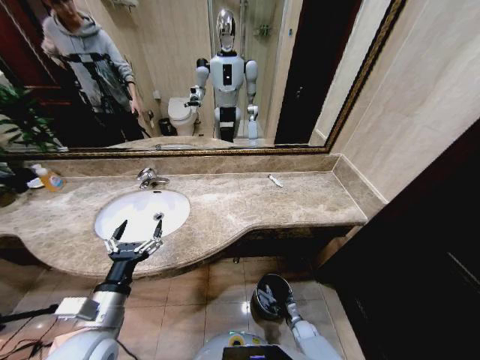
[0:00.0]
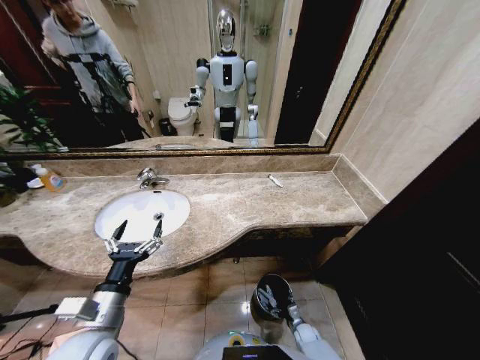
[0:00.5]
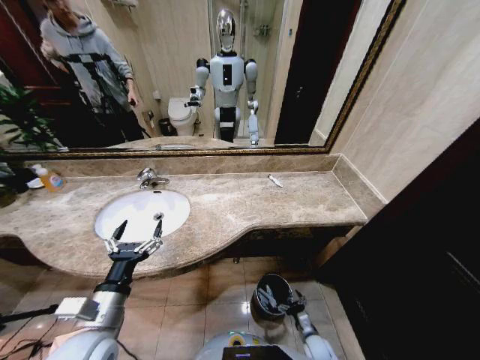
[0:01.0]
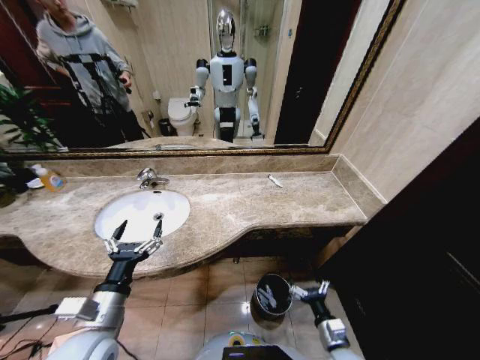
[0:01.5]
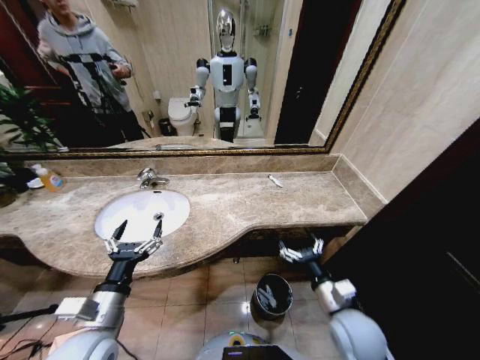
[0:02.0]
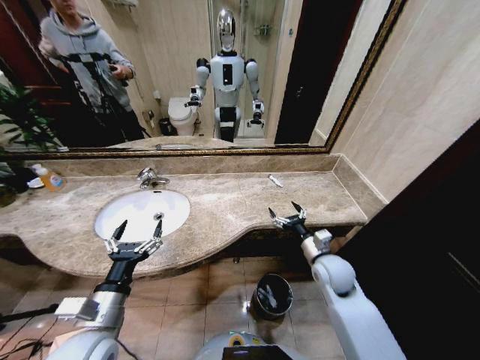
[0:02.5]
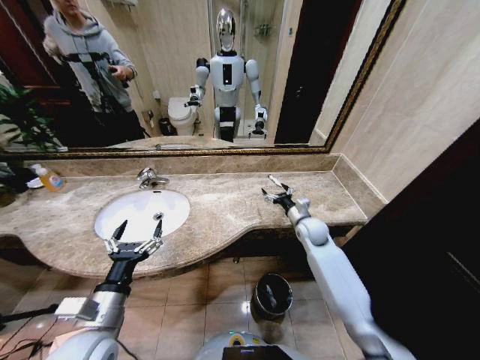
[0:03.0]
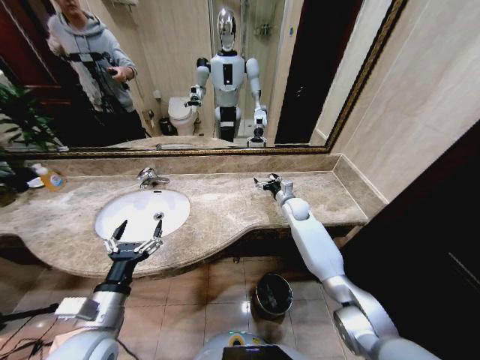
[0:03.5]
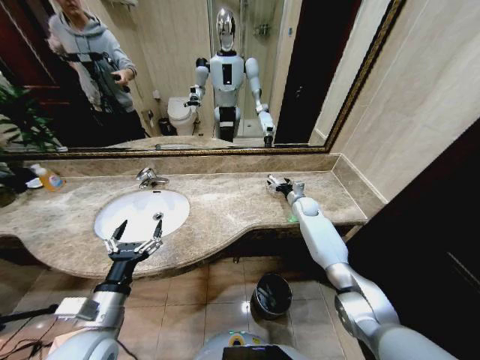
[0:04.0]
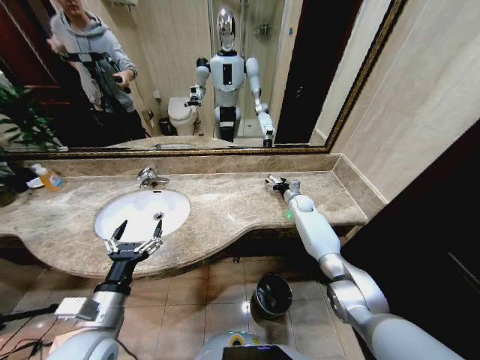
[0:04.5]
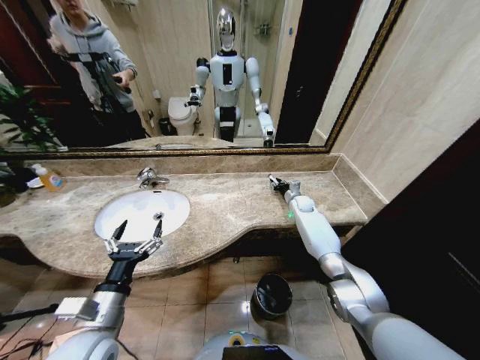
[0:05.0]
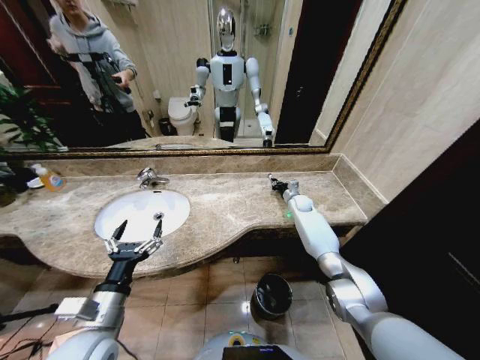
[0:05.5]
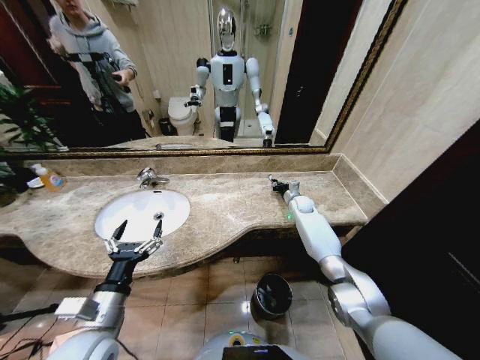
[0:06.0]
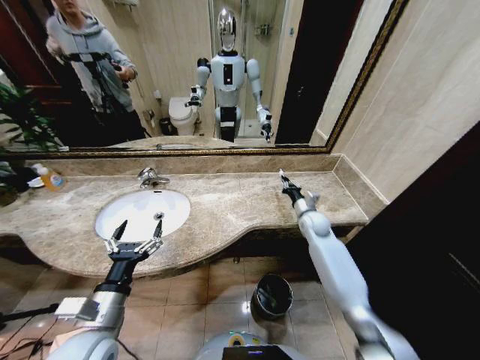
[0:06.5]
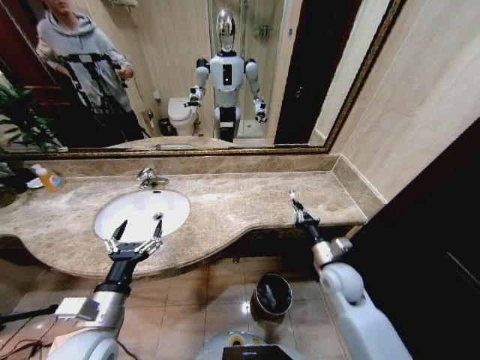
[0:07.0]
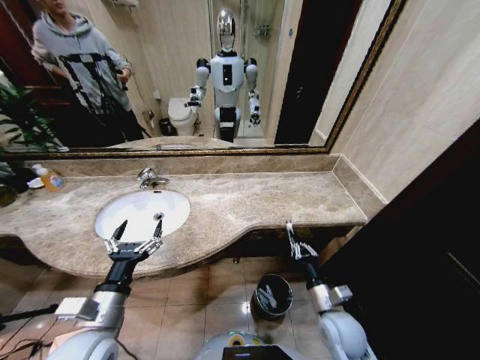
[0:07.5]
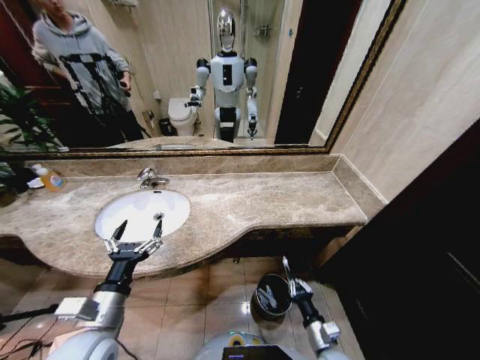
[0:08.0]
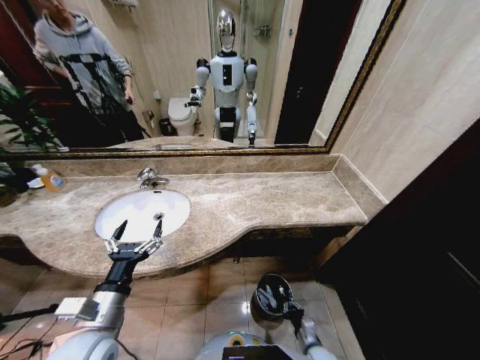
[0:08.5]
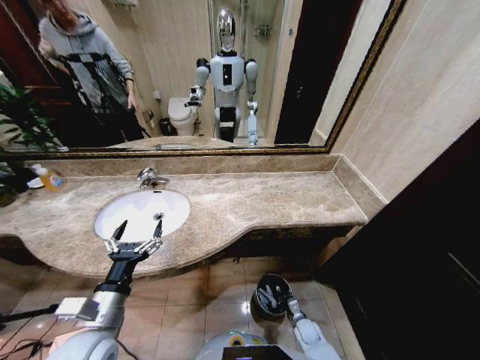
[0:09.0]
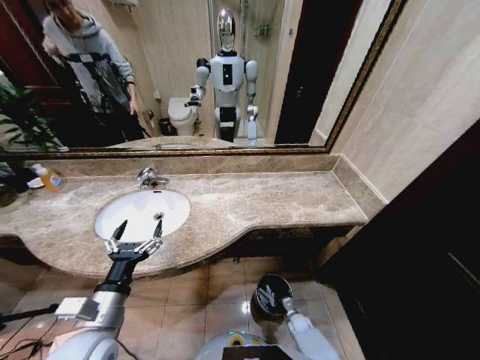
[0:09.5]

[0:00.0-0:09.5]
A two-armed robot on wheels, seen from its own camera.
Task of the whole recording: Pick up the trash from the sink and place it in the trash bin.
0:00.0 to 0:02.0: The right gripper shifts roughly 40 cm upward, and opens up.
0:02.0 to 0:04.0: The right gripper is displaced forward by roughly 40 cm.
0:04.0 to 0:05.5: The right gripper closes its fingers.
0:05.5 to 0:07.5: The right gripper moves backward, approximately 40 cm.
0:07.5 to 0:09.5: The right gripper shifts about 30 cm downward.

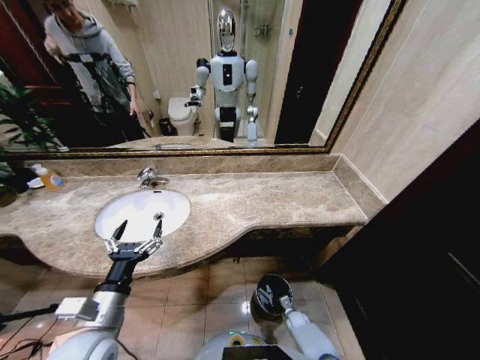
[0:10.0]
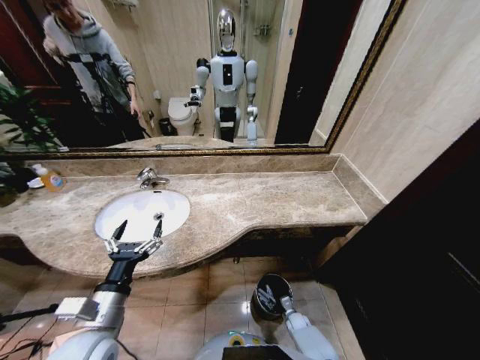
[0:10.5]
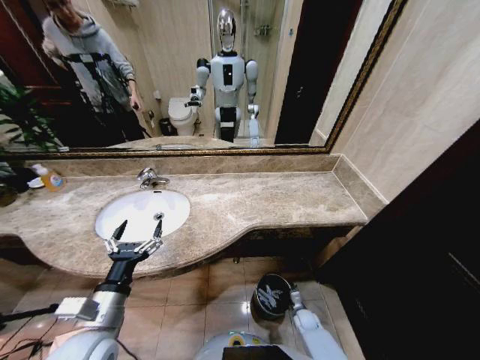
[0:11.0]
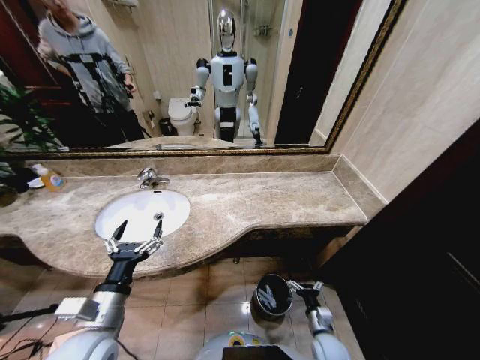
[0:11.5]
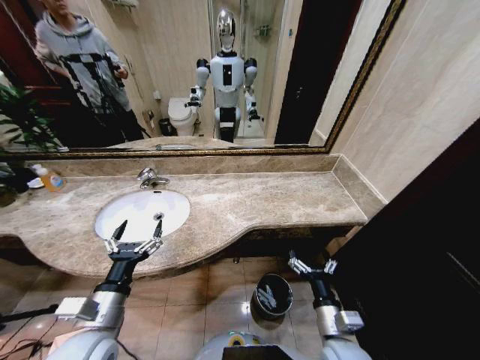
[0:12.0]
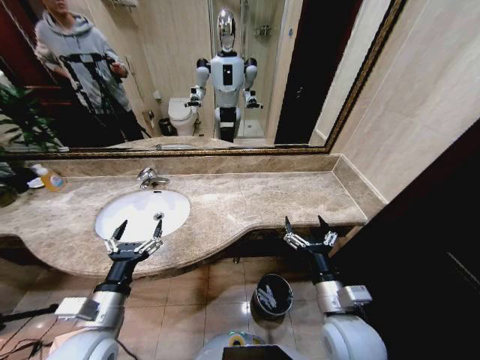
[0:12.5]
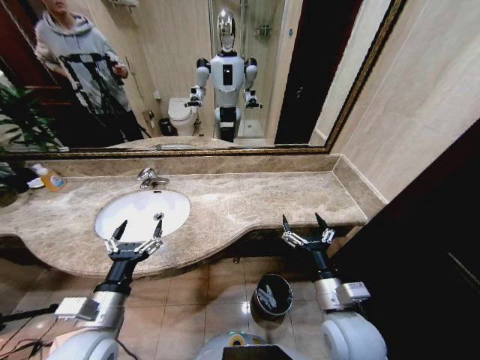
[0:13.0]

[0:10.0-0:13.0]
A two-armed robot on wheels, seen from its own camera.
Task of the whole recording: Pick up the trash from the sink and place it in the trash bin.
0:10.0 to 0:11.5: The right gripper moves upward and backward, about 20 cm, and opens up.
0:11.5 to 0:13.0: The right gripper heads upward, covering about 30 cm.

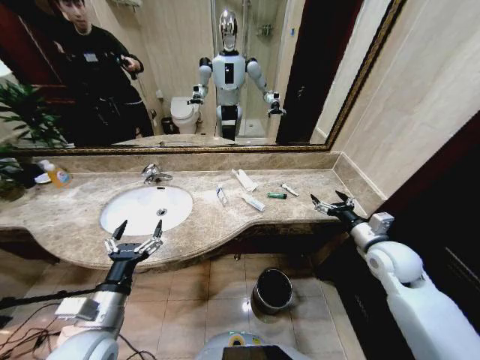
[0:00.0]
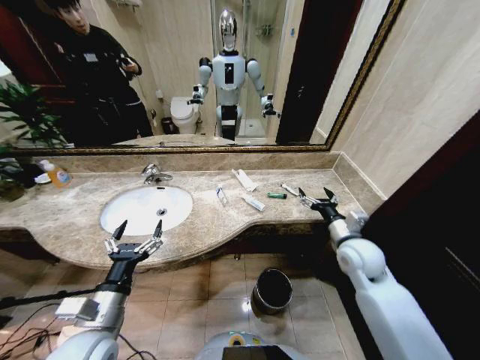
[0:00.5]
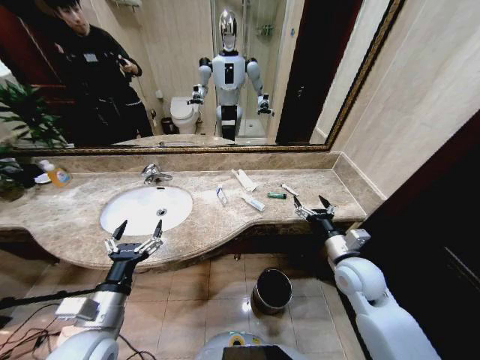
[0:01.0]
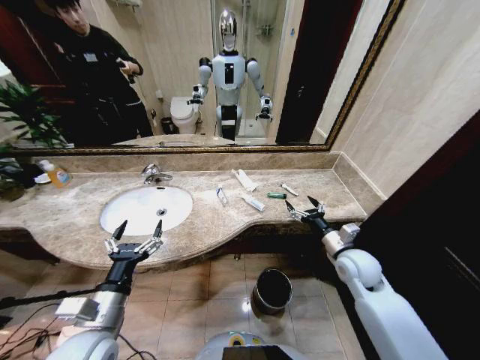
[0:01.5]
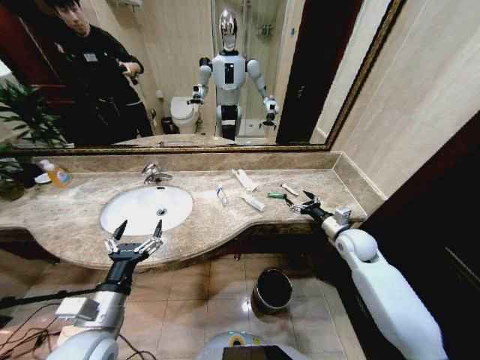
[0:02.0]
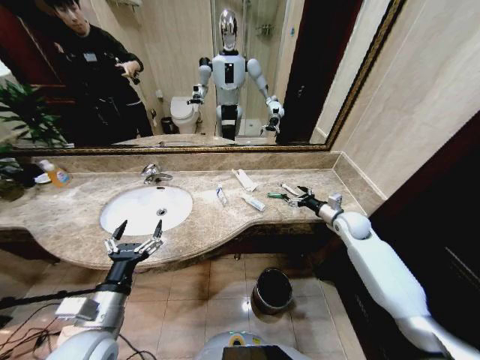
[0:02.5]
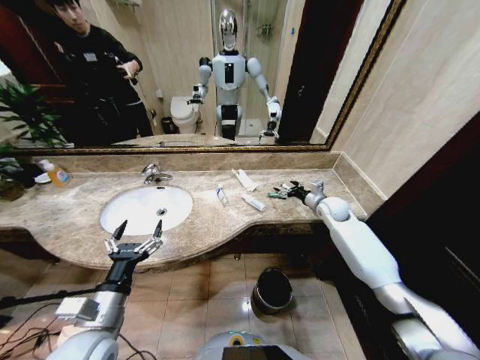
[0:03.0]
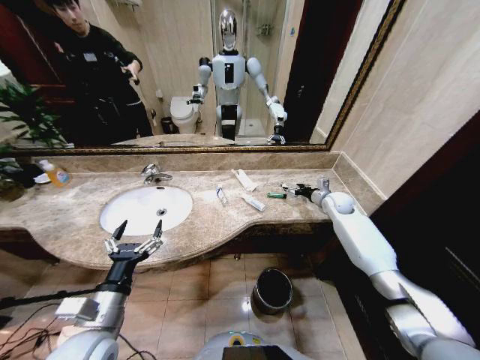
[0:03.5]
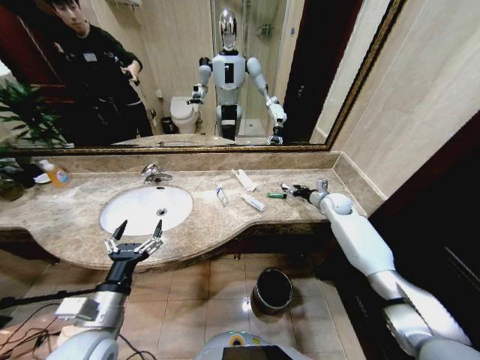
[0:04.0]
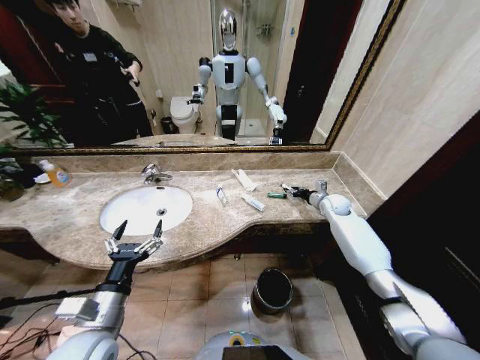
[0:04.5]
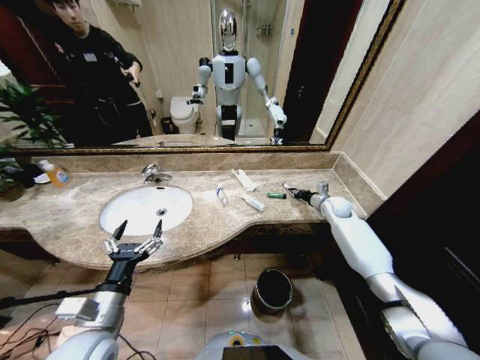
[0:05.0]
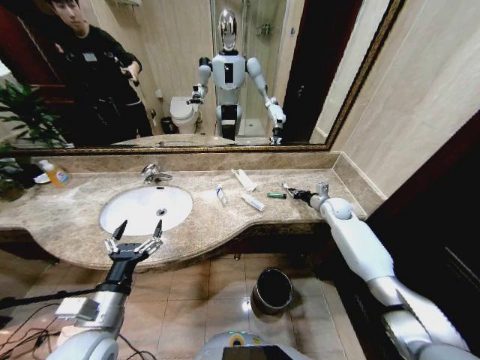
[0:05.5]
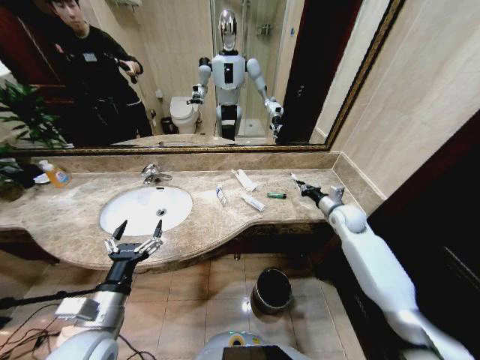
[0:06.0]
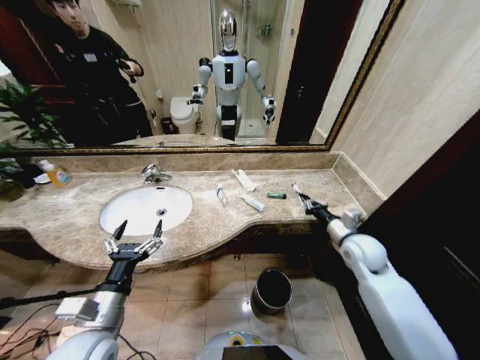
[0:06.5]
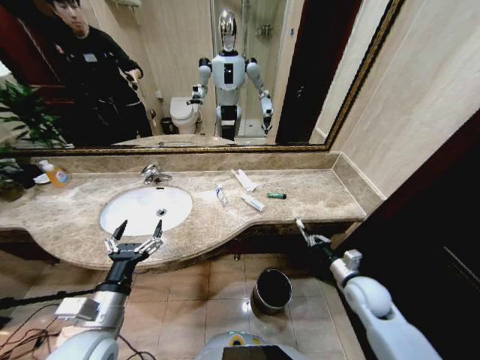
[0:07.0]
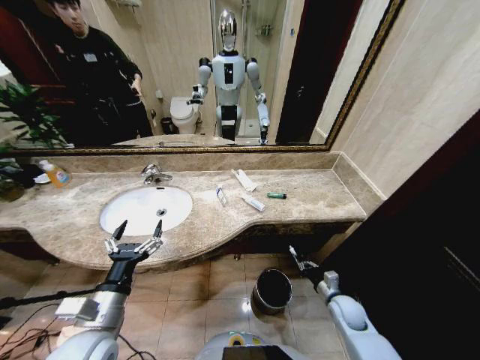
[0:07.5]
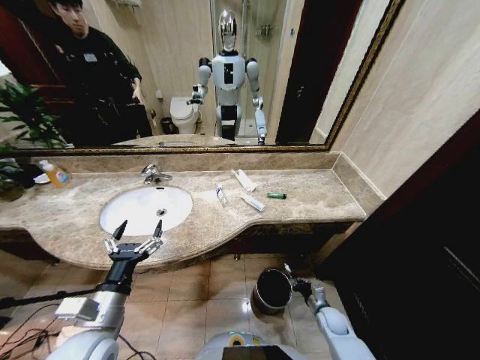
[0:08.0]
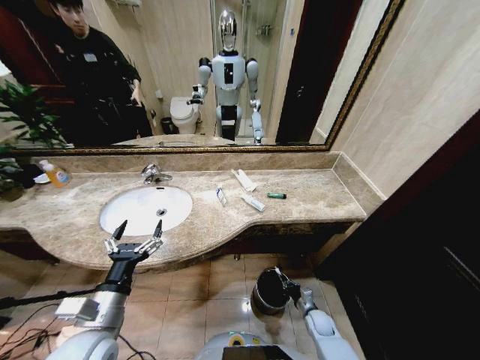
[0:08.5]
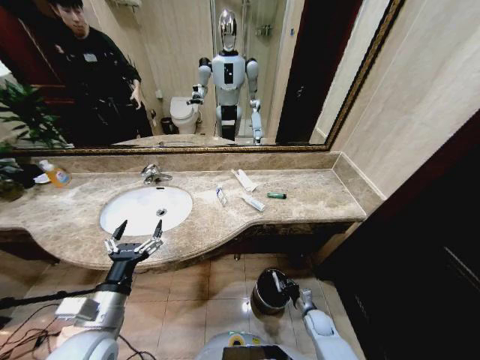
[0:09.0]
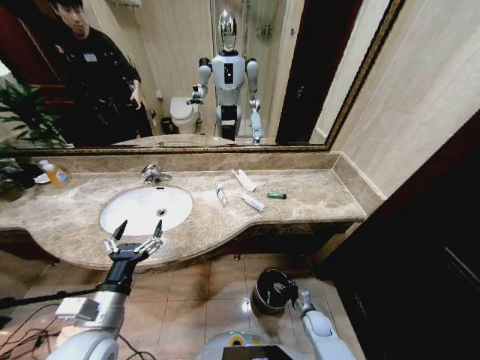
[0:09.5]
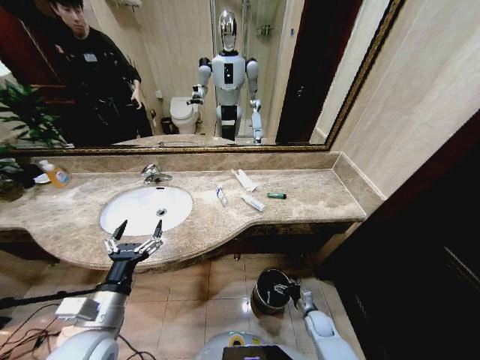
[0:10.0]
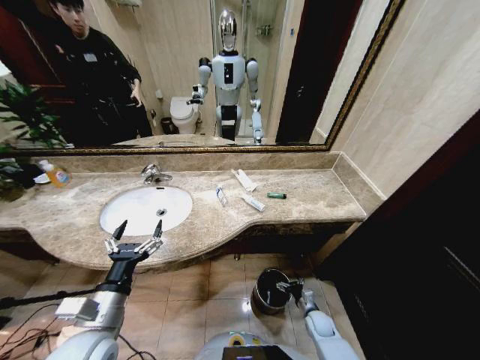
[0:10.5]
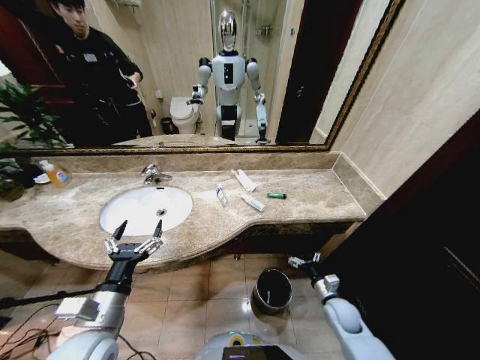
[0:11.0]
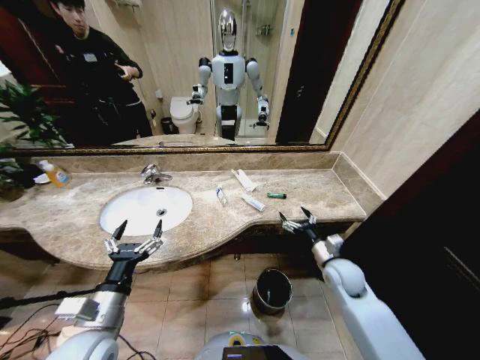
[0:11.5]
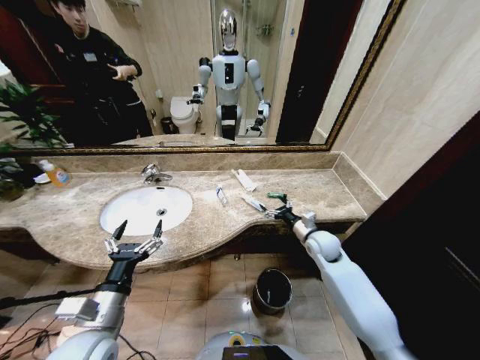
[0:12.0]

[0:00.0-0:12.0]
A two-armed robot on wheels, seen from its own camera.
Task of the whole recording: Pick up the trash from the sink and place it in the trash bin.
0:02.0 to 0:04.0: The right gripper shifts roughly 15 cm forward.
0:04.0 to 0:06.0: The right gripper is displaced backward by about 5 cm, and closes.
0:06.0 to 0:08.0: The right gripper moves downward and backward, some 40 cm.
0:08.0 to 0:10.0: The right gripper moves about 5 cm, and opens its fingers.
0:10.0 to 0:12.0: The right gripper shifts some 35 cm upward and forward.

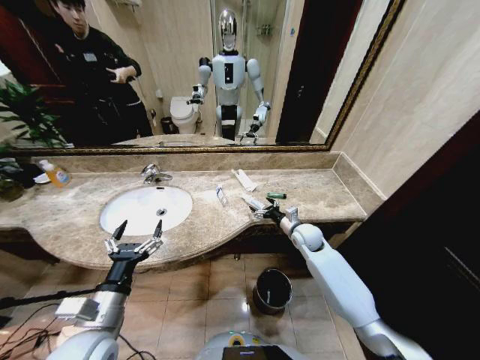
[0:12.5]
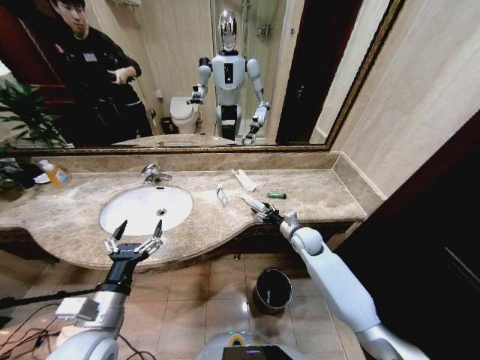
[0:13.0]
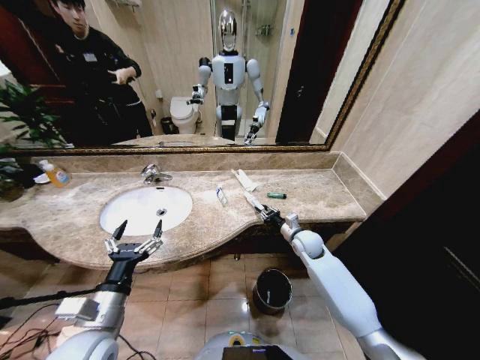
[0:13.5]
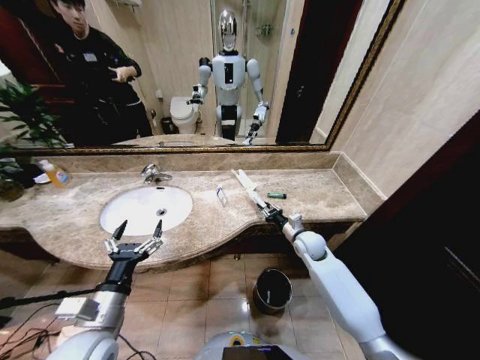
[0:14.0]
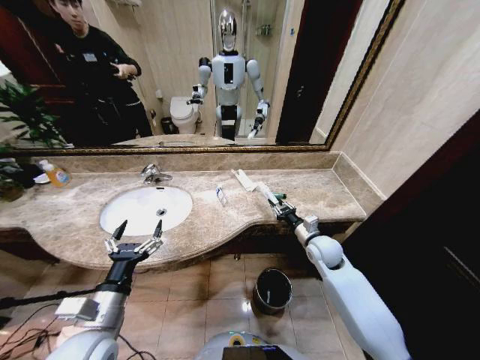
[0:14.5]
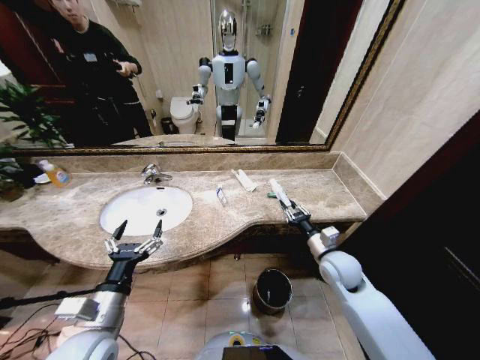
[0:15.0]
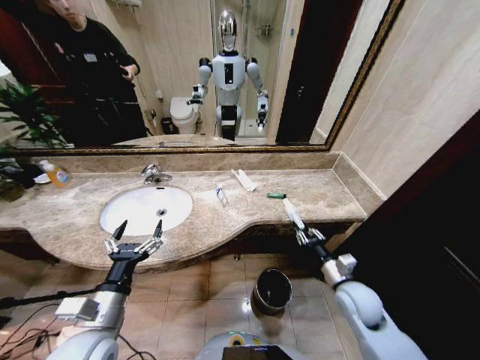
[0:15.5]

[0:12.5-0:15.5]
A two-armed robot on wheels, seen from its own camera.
Task of the whole recording: Pick up the trash from the sink and place it in the trash bin.
0:12.5 to 0:14.0: The right gripper closes up.
0:14.0 to 0:15.5: The right gripper travels backward by about 15 cm.
